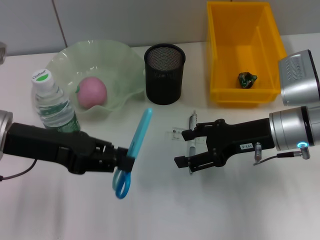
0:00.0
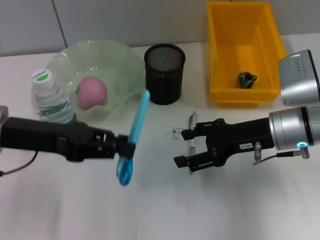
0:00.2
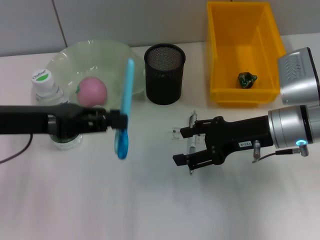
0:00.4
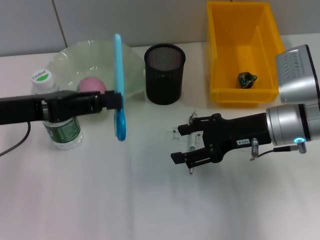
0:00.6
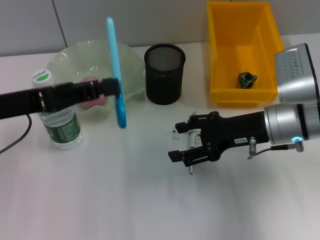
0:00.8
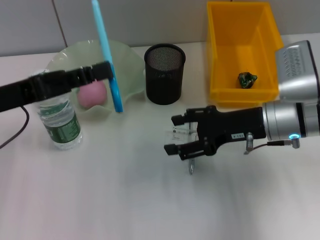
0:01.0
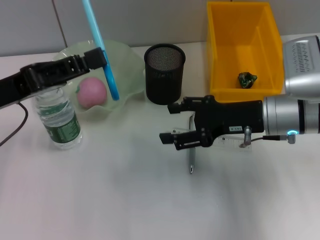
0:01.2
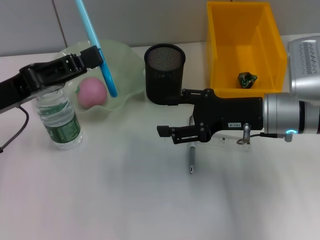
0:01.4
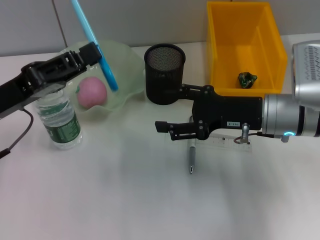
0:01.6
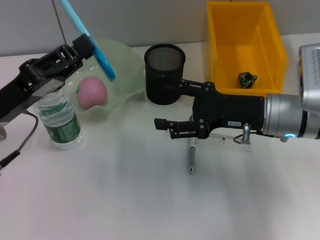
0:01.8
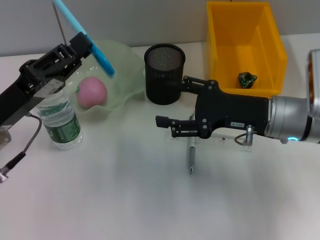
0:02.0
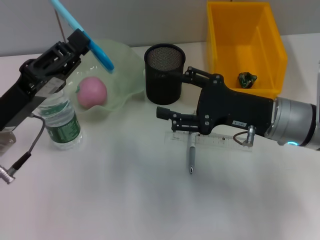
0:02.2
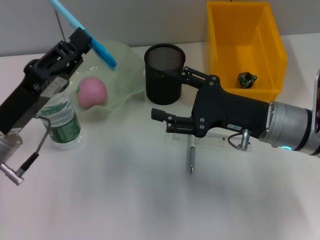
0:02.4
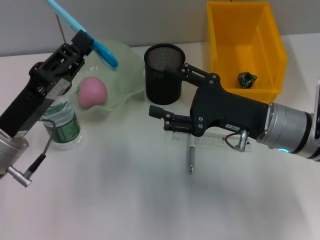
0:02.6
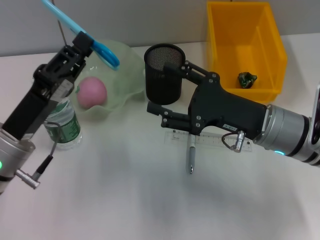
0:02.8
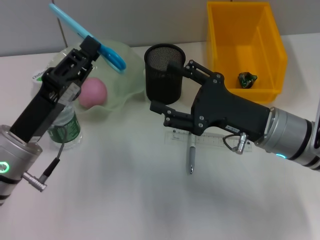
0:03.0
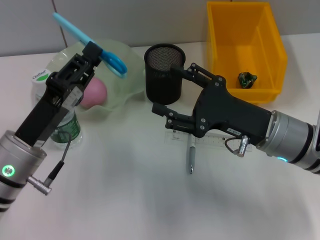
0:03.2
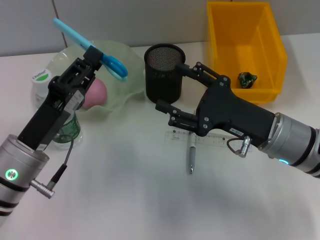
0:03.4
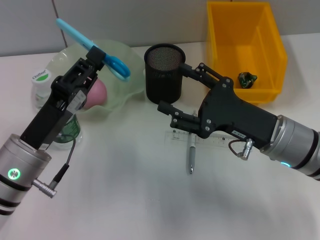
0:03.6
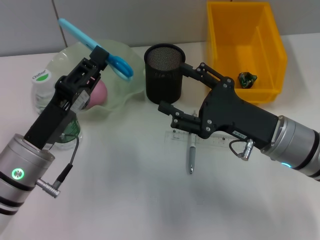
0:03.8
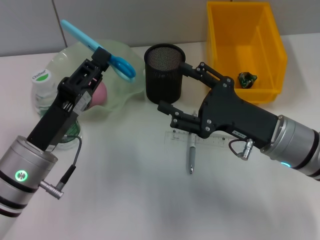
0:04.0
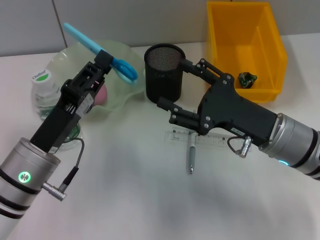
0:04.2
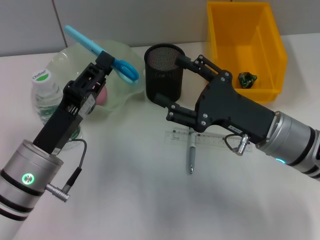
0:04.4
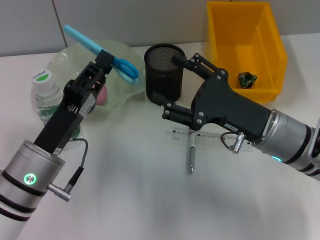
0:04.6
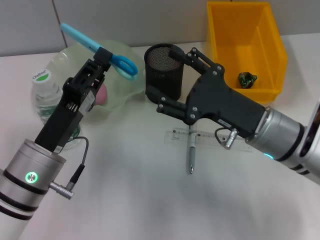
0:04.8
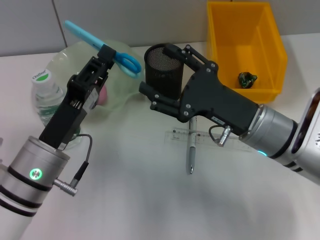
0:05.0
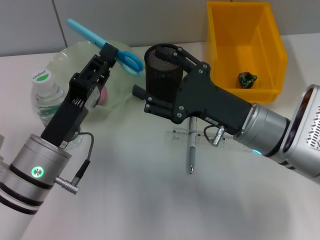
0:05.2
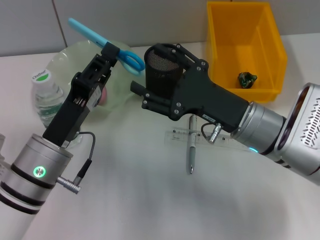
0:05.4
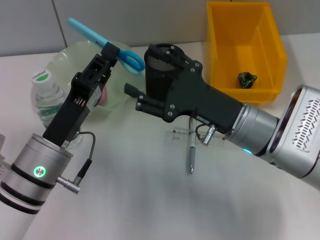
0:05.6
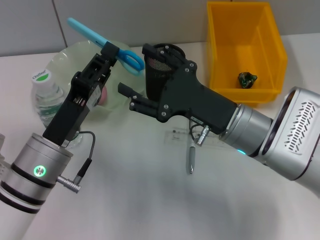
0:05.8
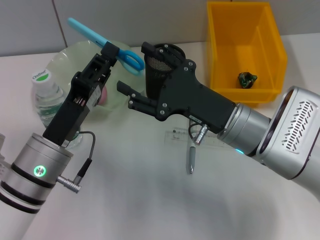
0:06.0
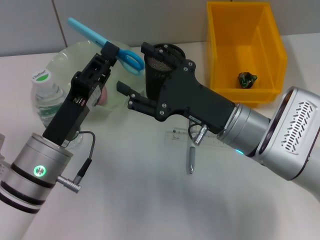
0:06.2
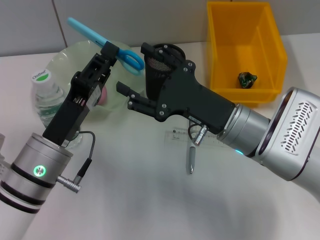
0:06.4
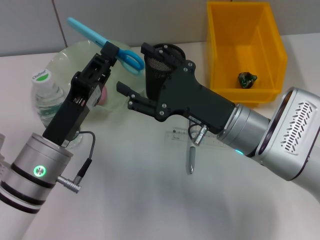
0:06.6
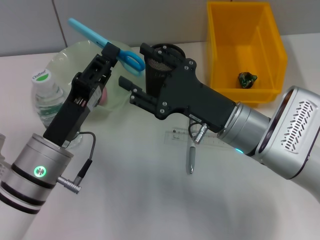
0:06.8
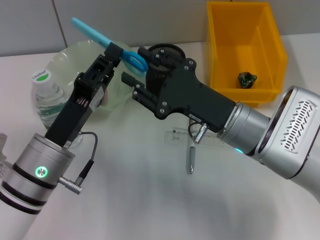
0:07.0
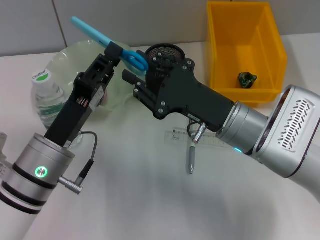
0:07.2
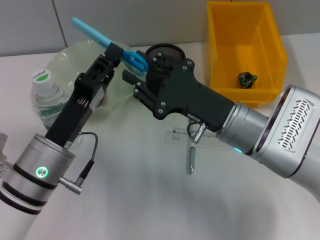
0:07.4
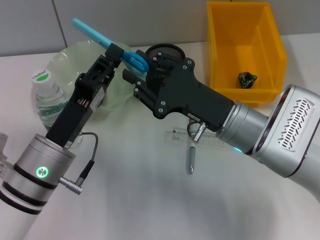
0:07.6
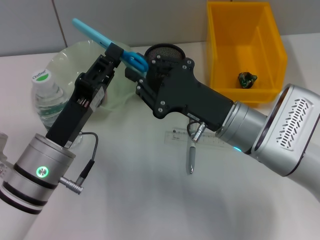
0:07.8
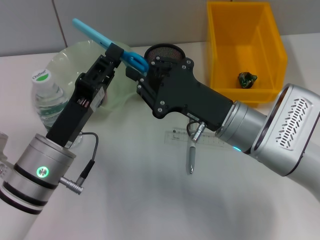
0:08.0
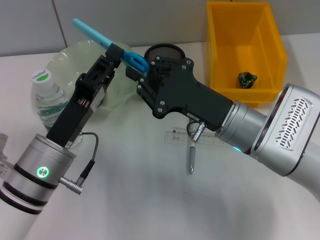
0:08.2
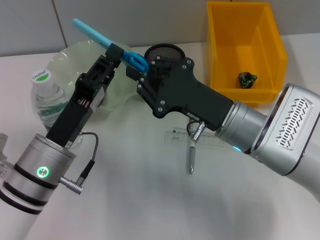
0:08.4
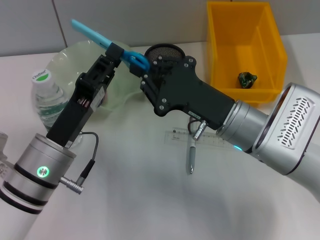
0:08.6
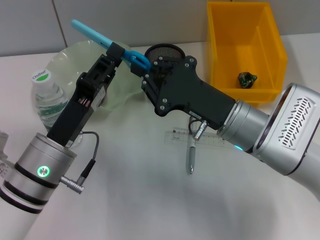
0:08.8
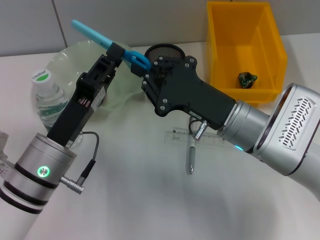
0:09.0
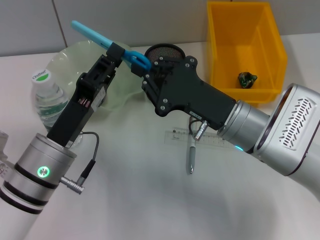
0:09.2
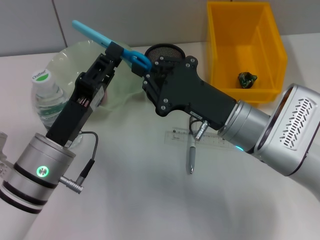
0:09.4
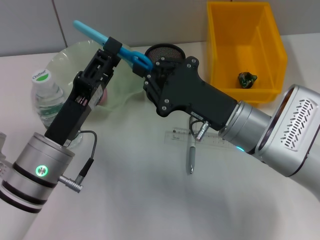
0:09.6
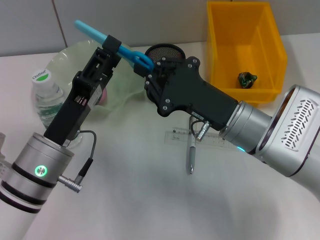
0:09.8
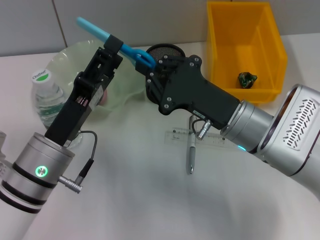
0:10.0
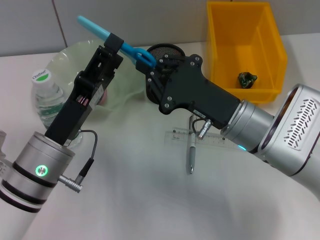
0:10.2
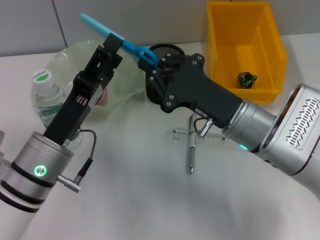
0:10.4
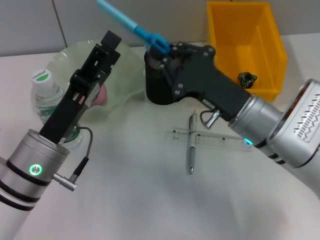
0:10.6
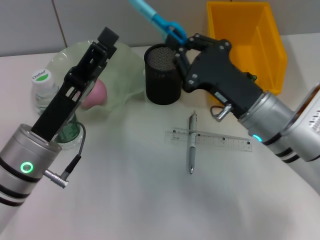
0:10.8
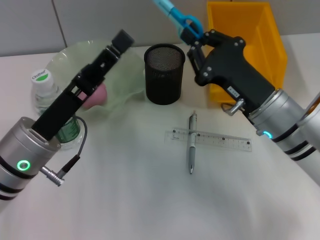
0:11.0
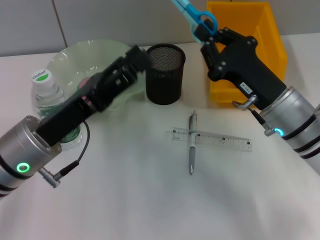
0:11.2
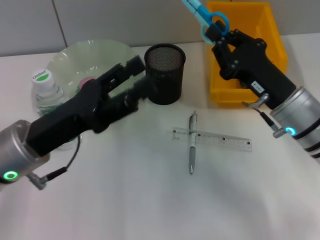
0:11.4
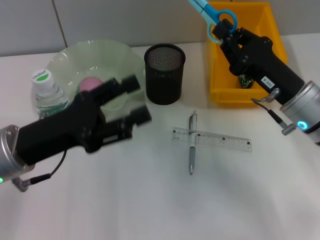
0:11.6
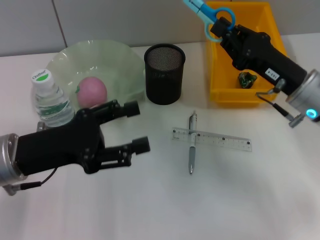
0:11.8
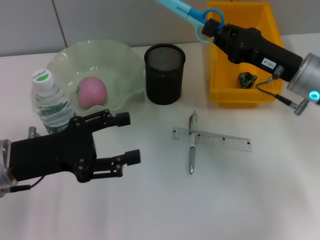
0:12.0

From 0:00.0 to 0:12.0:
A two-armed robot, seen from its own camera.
Step, from 0:00.0 to 0:10.4: Pass the blue scissors from the left hand to the right hand.
From 0:01.6 to 0:03.0: The left gripper is displaced downward by about 5 cm.
From 0:03.0 to 0:04.4: The grippers move only a little.
From 0:04.4 to 0:06.0: The right gripper shifts approximately 5 cm to the left.
From 0:06.0 to 0:07.6: The right gripper closes up.
From 0:07.6 to 0:09.0: The right gripper closes its fingers.
From 0:09.0 to 0:10.4: The left gripper opens.
From 0:10.4 to 0:12.0: The left gripper goes approximately 10 cm to the left; the right gripper is displaced to the right and forward by approximately 10 cm.

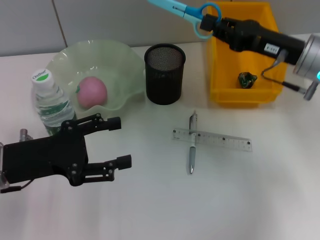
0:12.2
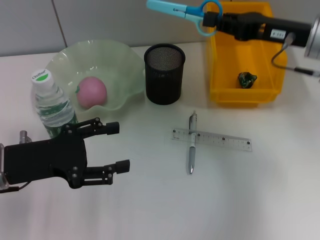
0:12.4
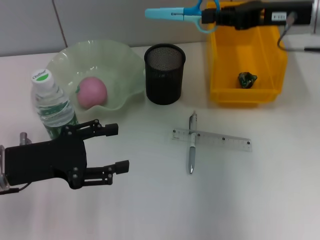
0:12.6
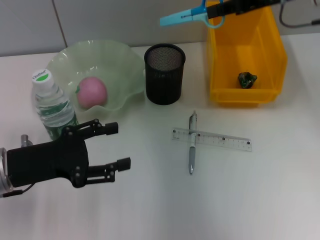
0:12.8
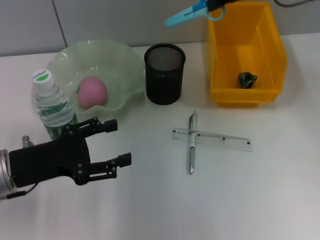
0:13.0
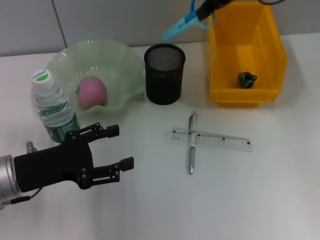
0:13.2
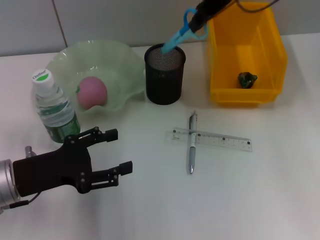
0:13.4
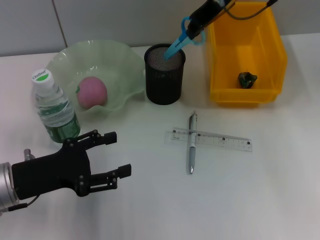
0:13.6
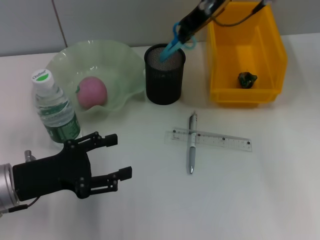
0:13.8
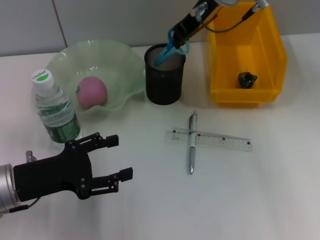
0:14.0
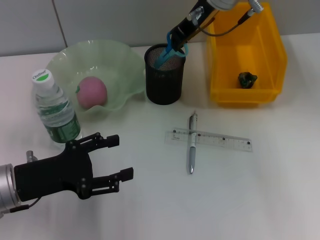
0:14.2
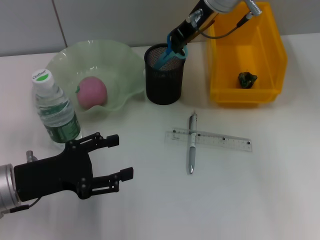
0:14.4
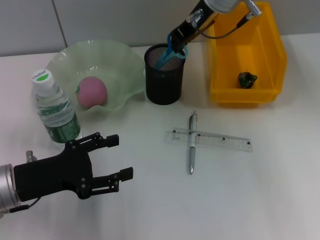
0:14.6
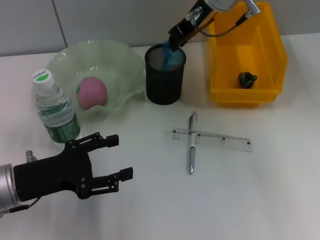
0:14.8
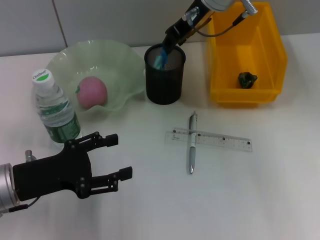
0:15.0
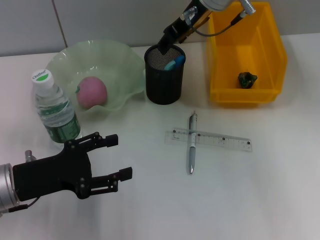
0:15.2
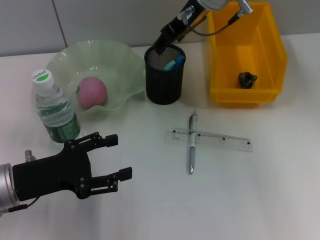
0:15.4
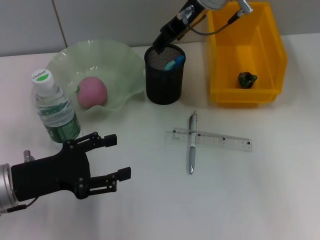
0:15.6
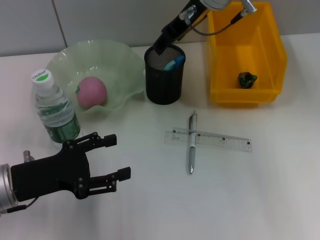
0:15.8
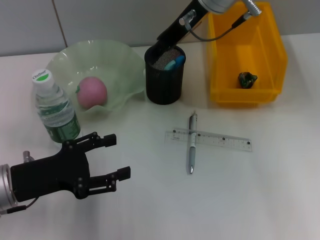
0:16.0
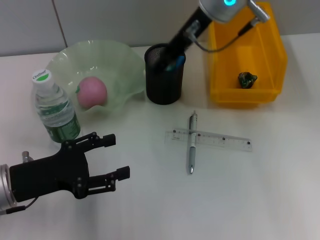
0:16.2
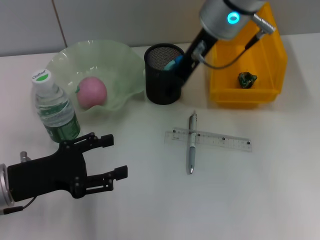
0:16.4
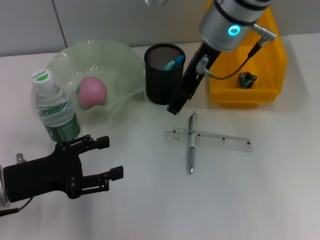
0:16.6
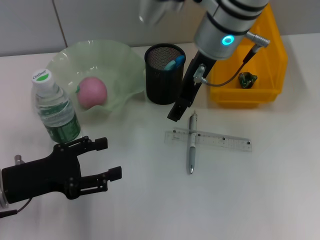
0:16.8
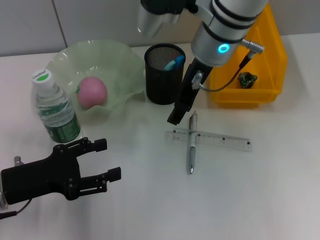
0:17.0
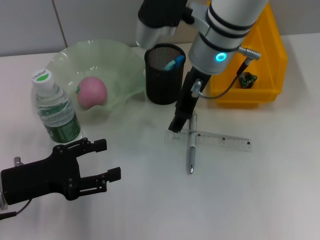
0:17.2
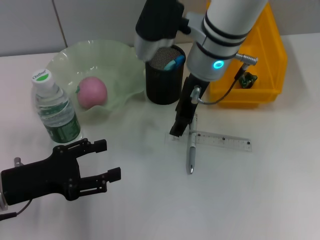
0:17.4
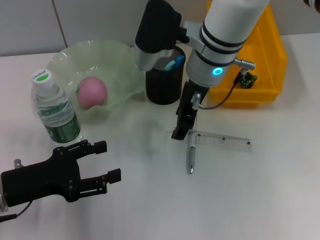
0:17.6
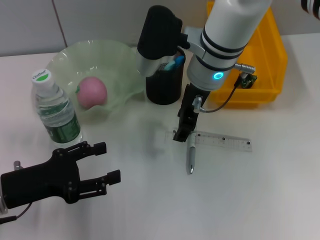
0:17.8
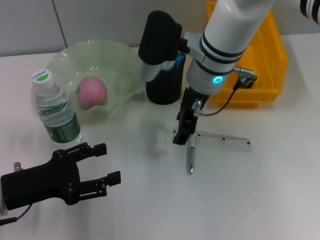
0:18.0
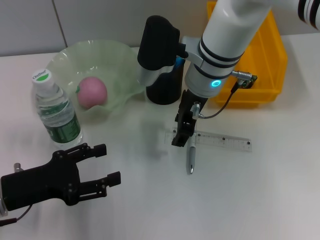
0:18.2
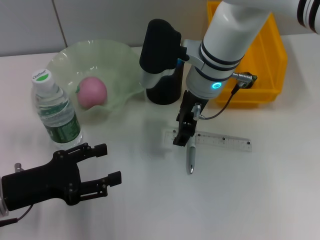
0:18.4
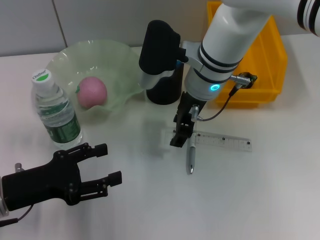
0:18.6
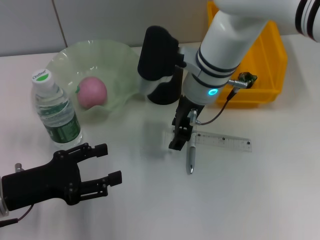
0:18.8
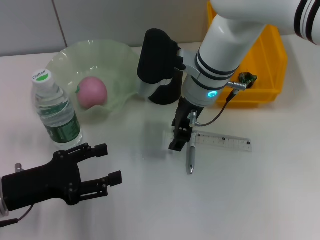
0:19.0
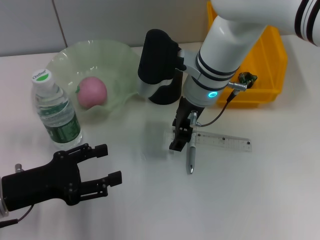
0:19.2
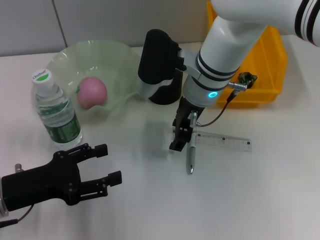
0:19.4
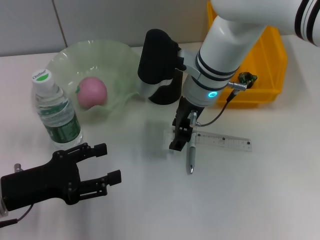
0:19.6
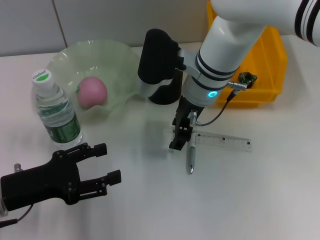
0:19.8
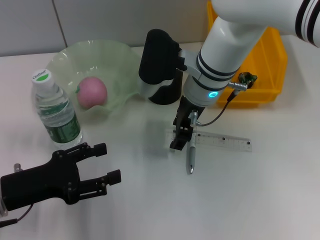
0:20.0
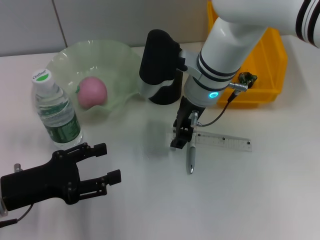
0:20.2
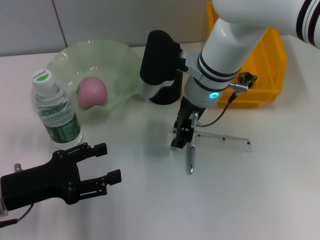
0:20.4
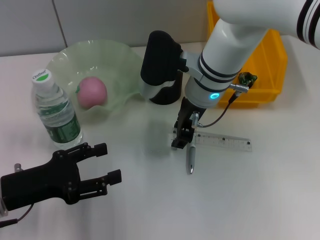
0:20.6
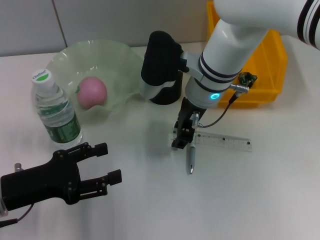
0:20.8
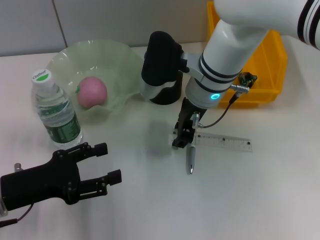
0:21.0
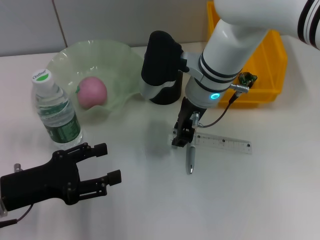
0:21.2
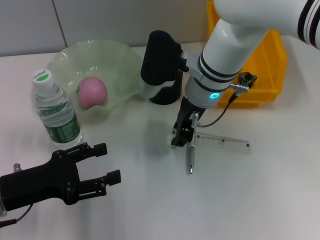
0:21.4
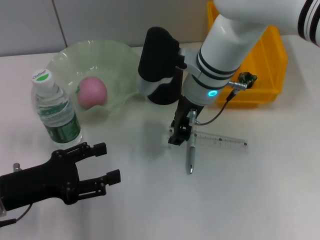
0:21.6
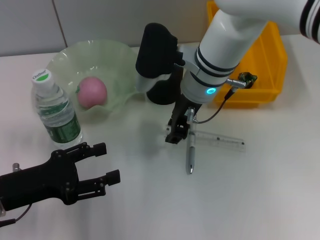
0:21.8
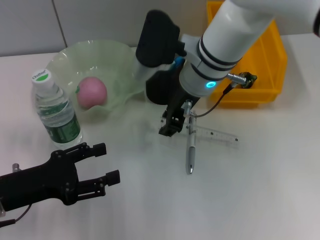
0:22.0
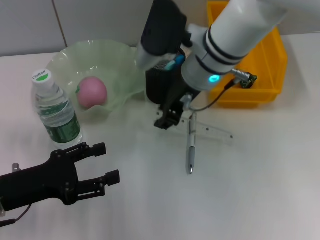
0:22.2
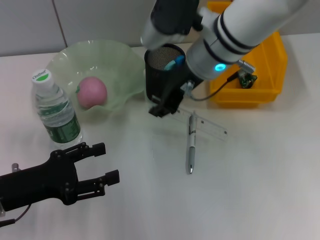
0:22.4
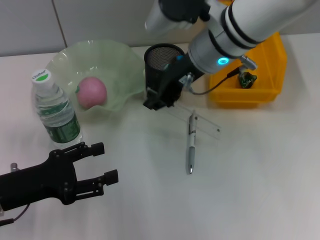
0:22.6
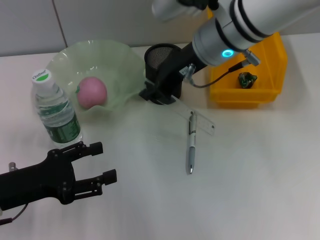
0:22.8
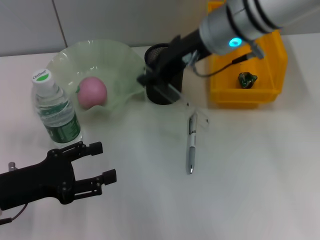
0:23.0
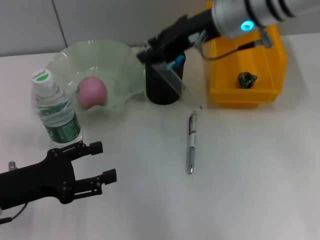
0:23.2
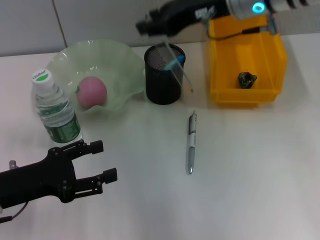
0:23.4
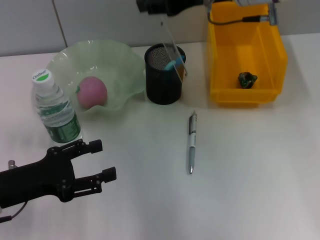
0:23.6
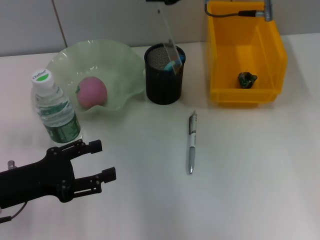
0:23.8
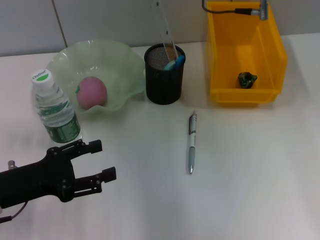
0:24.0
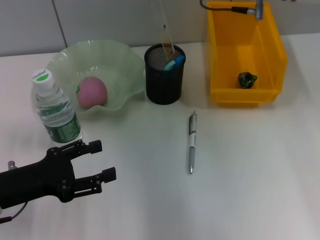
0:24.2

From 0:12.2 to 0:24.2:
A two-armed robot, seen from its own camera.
Step, from 0:12.2 to 0:15.2: Place the blue scissors into the pen holder with the right hand.
Step, from 0:15.4 to 0:22.0: Grab the ruler with the right hand.
From 0:12.2 to 0:13.8: The right gripper is displaced to the left, upward and forward by some 20 cm.
From 0:13.8 to 0:15.2: The grippers move only a little.
From 0:15.2 to 0:16.6: The right gripper travels backward by about 5 cm, and opens its fingers.
From 0:16.6 to 0:18.2: The right gripper shifts roughly 10 cm downward.
From 0:18.2 to 0:19.8: The grippers stay close to where they were, moving slightly.
From 0:19.8 to 0:21.2: Neither gripper changes place.
From 0:21.2 to 0:22.6: The right gripper moves upward, about 5 cm.
From 0:22.6 to 0:24.2: The right gripper travels to the right by roughly 5 cm.
